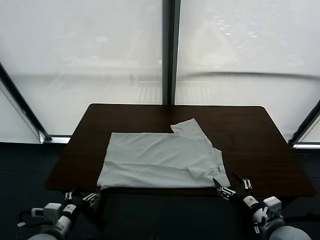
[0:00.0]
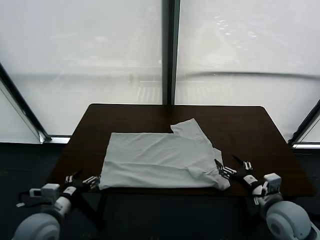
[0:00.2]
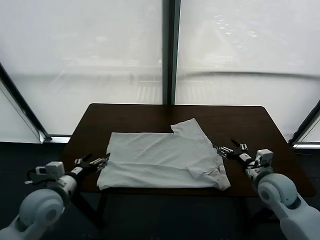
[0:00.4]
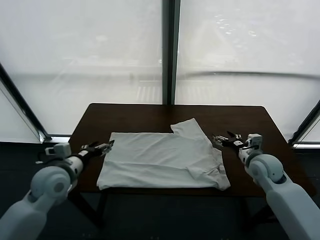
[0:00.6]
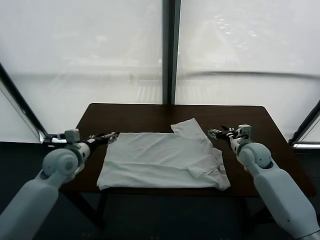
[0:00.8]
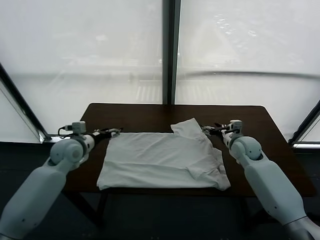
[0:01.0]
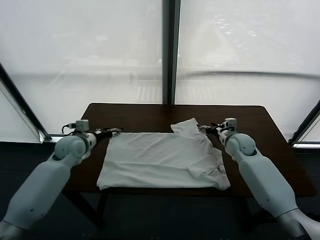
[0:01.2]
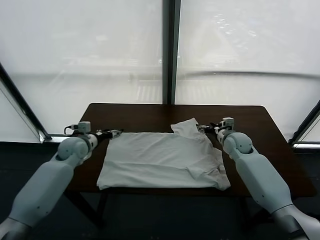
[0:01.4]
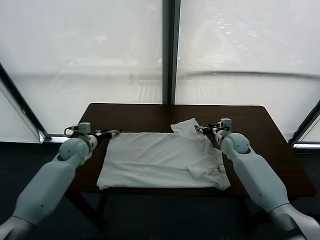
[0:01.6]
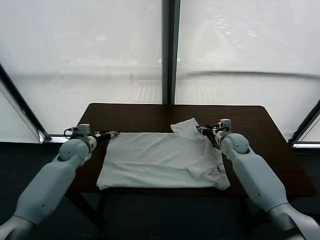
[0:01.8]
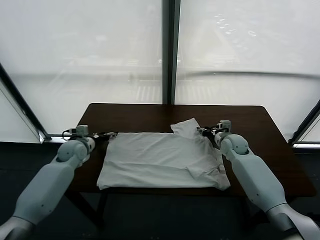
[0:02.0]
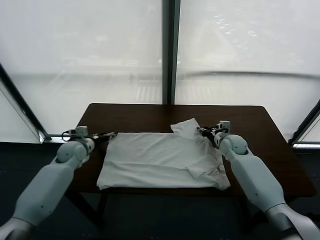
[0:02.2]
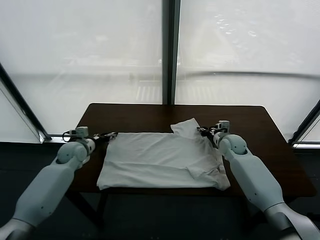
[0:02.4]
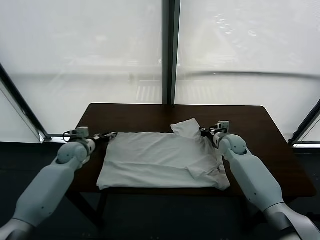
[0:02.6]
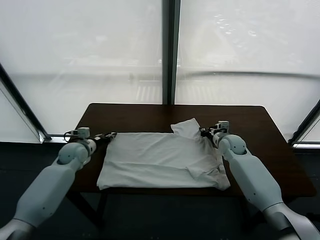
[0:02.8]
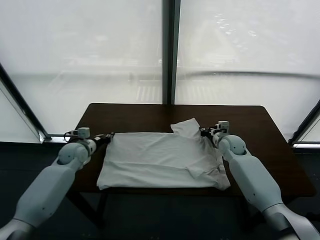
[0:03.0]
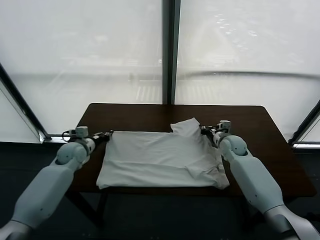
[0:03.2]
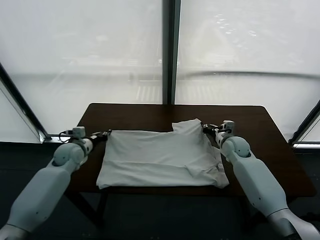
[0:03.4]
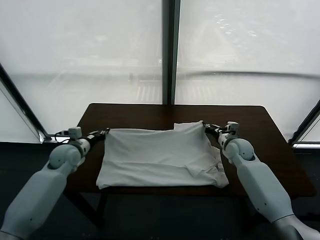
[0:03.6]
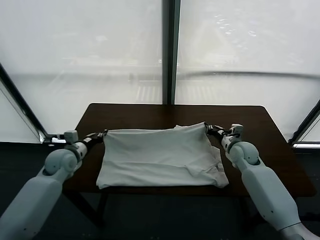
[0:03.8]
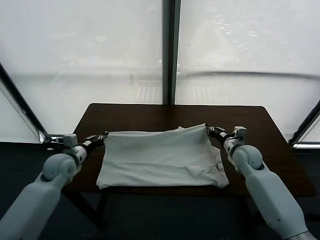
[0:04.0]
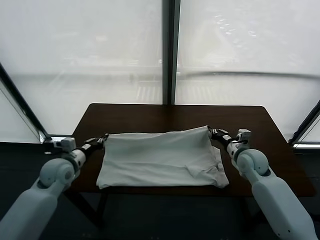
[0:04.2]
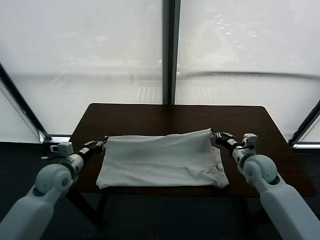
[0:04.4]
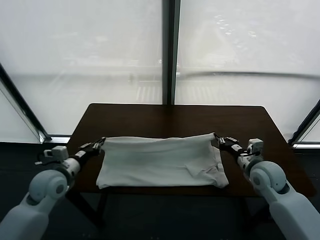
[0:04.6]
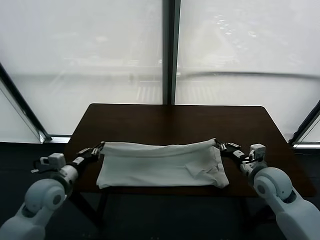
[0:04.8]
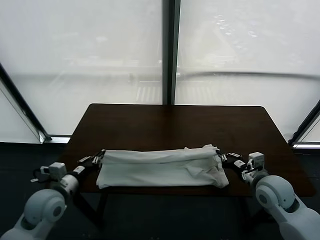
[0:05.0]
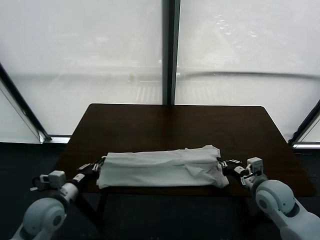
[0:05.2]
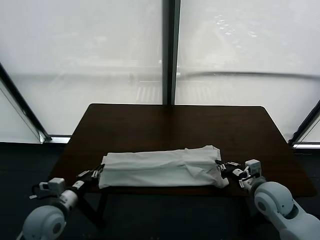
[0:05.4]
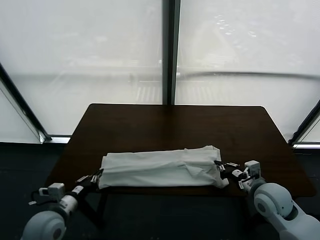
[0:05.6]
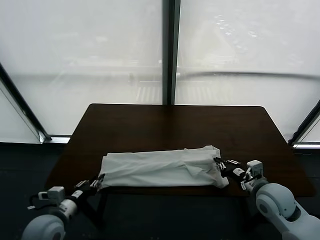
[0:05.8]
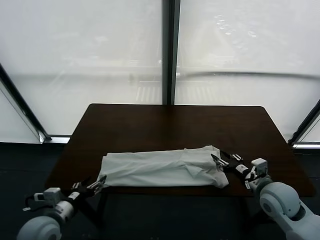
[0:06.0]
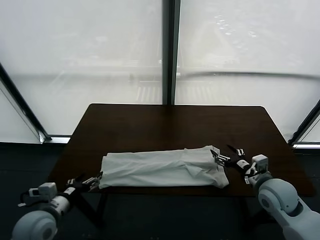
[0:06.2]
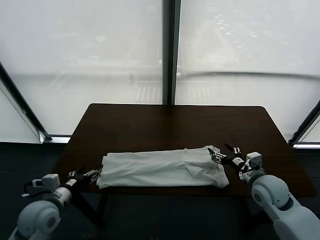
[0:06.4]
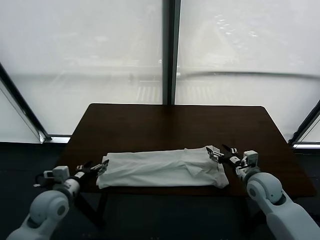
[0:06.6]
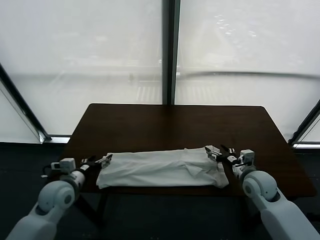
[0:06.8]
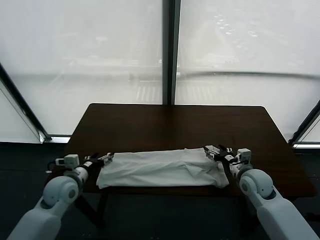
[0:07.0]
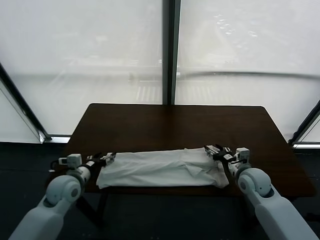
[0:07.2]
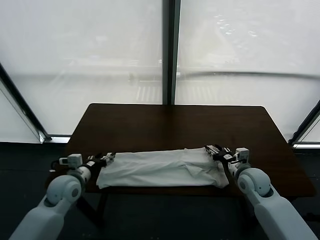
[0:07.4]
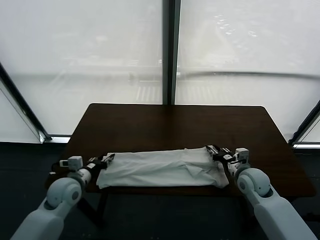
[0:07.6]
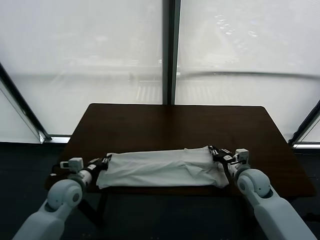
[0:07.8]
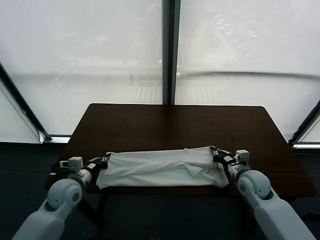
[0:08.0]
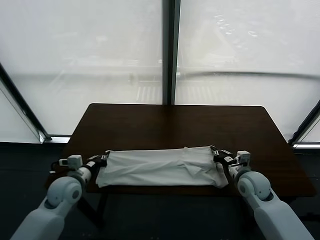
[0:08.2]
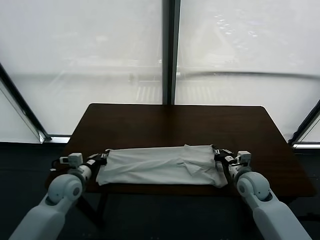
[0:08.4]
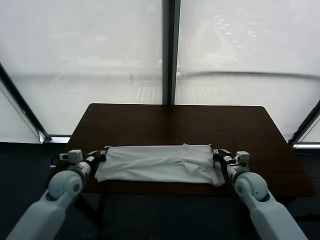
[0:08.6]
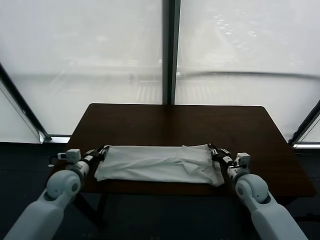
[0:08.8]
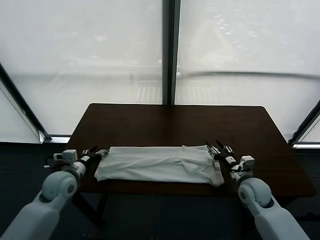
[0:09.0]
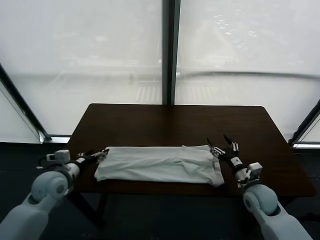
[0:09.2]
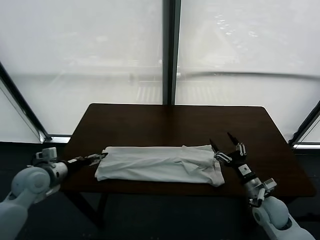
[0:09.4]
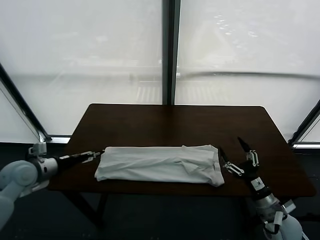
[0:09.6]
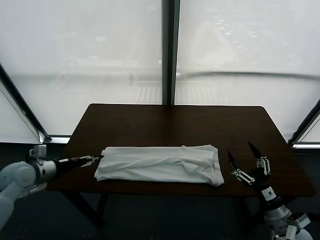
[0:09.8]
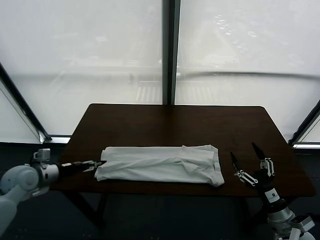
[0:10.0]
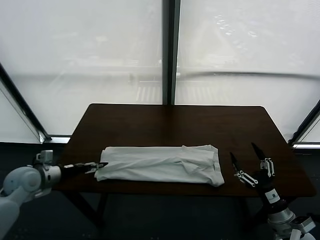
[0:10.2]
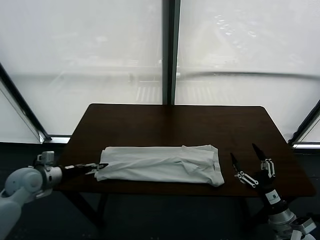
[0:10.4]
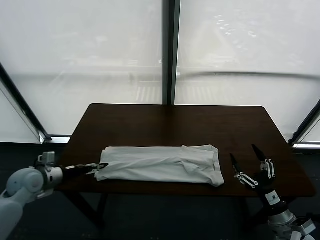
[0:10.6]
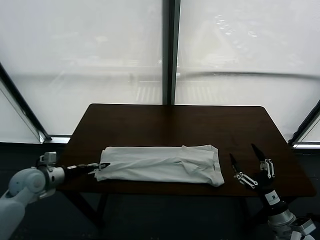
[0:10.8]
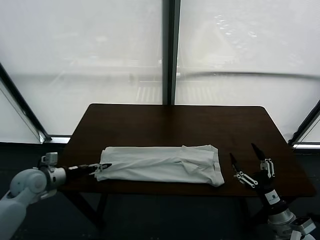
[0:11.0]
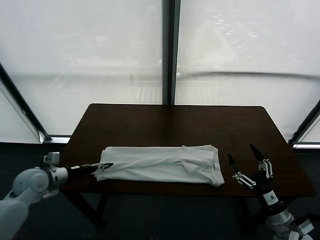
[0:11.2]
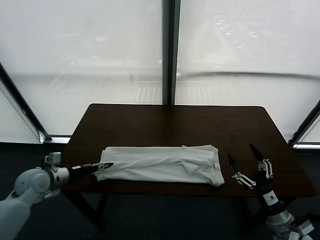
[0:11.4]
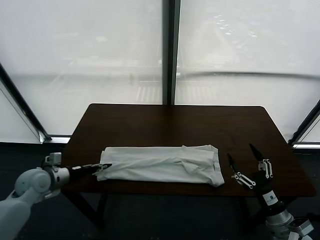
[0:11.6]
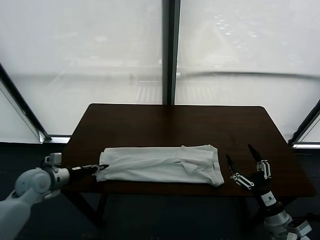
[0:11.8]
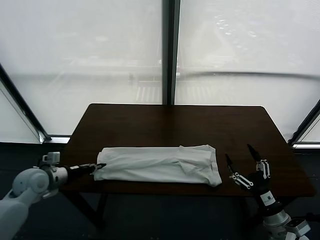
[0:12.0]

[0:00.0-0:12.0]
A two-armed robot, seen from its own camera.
Task of the whole recording: fold and organize the clothes.
Step, 0:00.0 to 0:03.0: use both grippers simultaneously to clamp the upper edge of the clothing fabric.
Step, 0:03.2 to 0:06.2: use both grippers to drag the upper edge of the fabric backward and fold it over the lower edge.
Step, 0:06.4 to 0:11.6: use the left gripper to clamp the left edge of the fabric.
0:00.0 to 0:01.6: The two grippers go roughly 30 cm forward.
0:01.6 to 0:03.0: The right gripper closes its fingers; the left gripper closes.
0:03.0 to 0:04.4: Both grippers travel together backward, roughly 15 cm.
0:04.4 to 0:06.0: The left gripper goes some 15 cm backward, and opens its fingers, while the right gripper moves backward, some 5 cm, and opens its fingers.
0:06.0 to 0:07.6: The left gripper travels forward by approximately 10 cm, and closes its fingers; the right gripper shifts roughly 10 cm forward and downward, and closes up.
0:07.6 to 0:09.0: The left gripper opens up, while the right gripper opens its fingers.
0:09.0 to 0:10.4: The right gripper heads backward, covering some 15 cm; the left gripper is displaced to the left by about 10 cm.
0:10.4 to 0:12.0: The left gripper closes up.

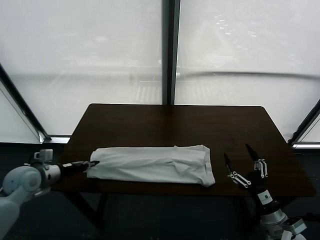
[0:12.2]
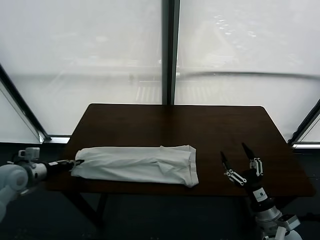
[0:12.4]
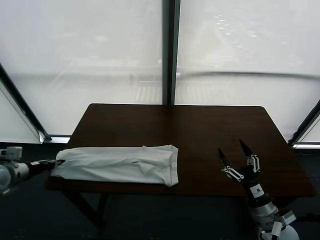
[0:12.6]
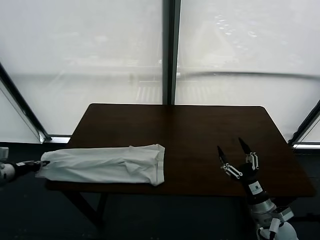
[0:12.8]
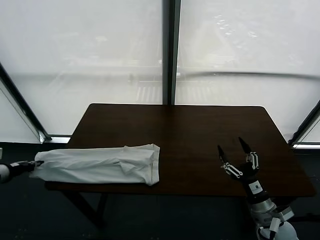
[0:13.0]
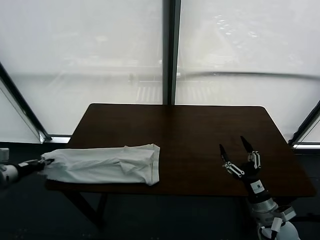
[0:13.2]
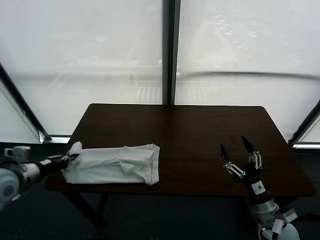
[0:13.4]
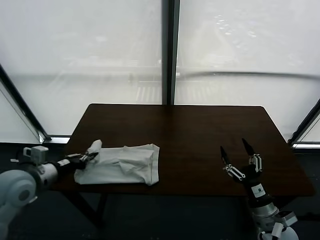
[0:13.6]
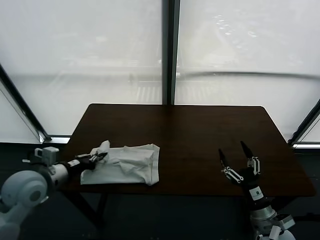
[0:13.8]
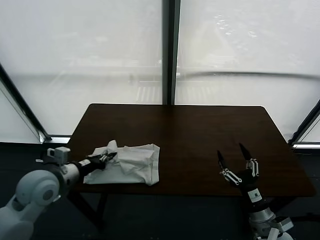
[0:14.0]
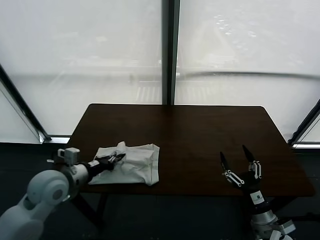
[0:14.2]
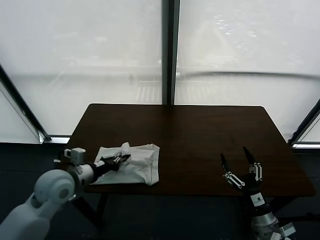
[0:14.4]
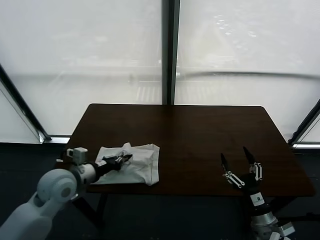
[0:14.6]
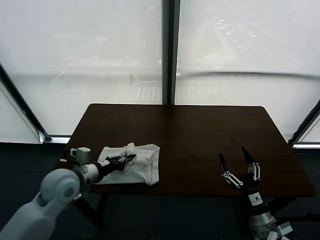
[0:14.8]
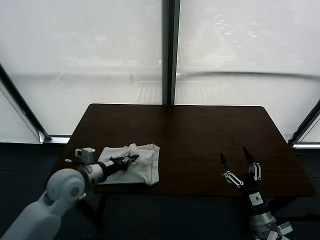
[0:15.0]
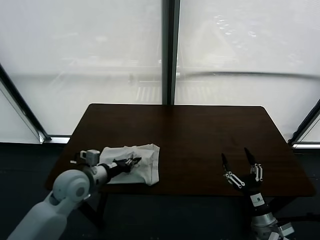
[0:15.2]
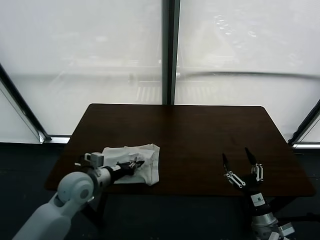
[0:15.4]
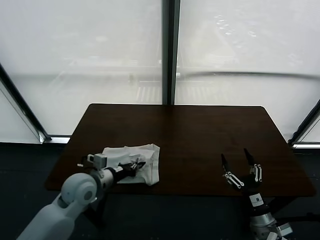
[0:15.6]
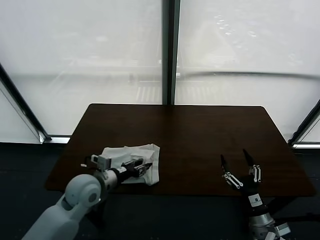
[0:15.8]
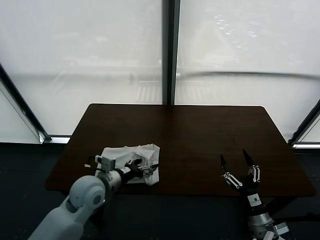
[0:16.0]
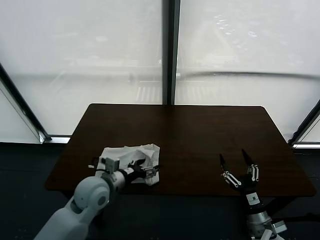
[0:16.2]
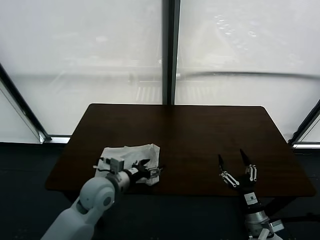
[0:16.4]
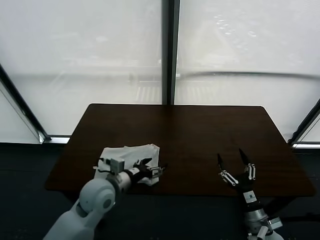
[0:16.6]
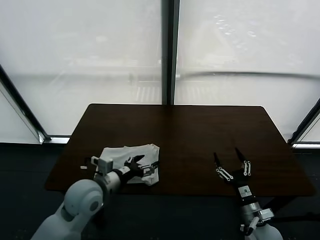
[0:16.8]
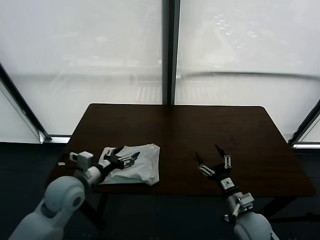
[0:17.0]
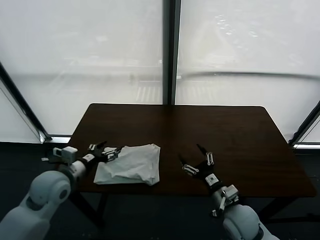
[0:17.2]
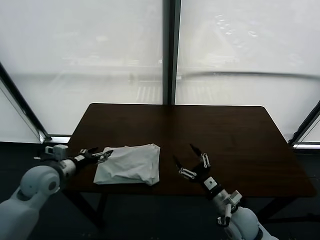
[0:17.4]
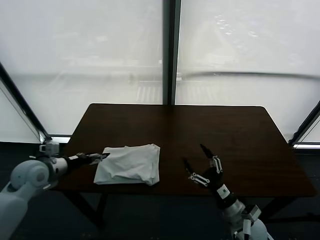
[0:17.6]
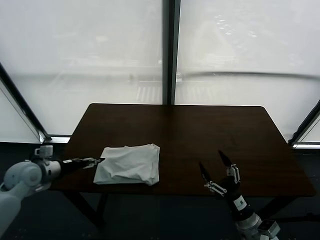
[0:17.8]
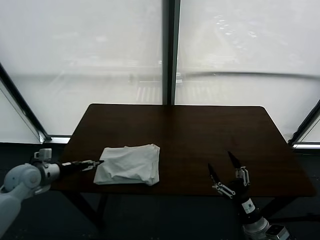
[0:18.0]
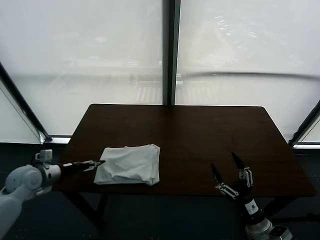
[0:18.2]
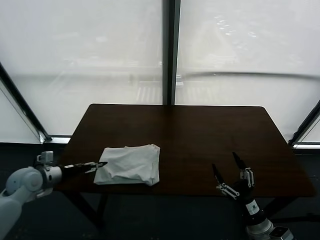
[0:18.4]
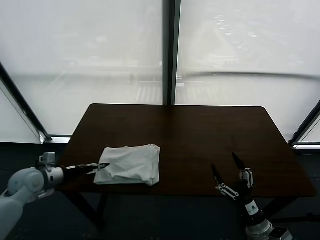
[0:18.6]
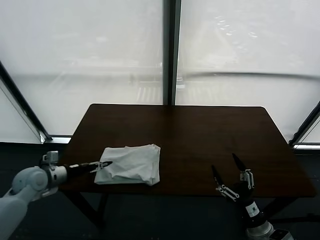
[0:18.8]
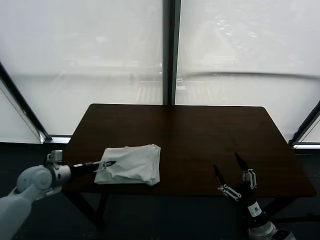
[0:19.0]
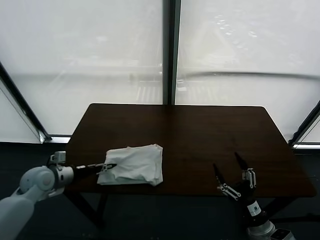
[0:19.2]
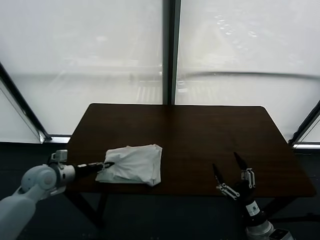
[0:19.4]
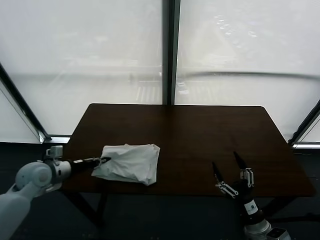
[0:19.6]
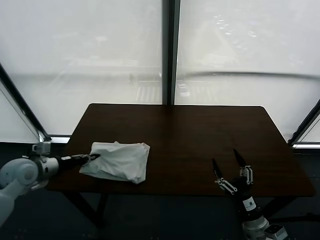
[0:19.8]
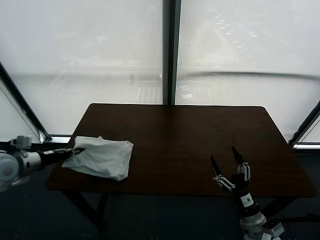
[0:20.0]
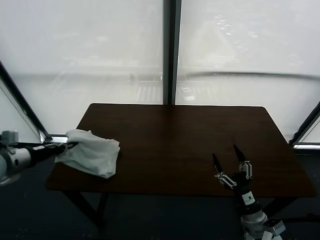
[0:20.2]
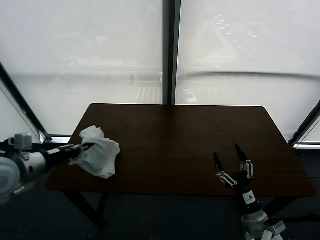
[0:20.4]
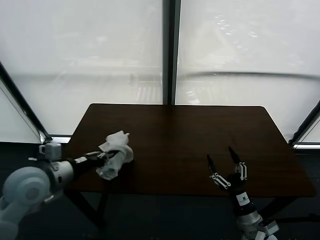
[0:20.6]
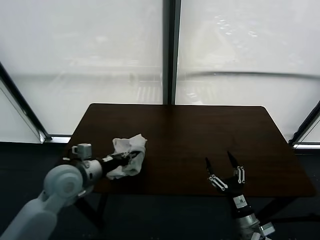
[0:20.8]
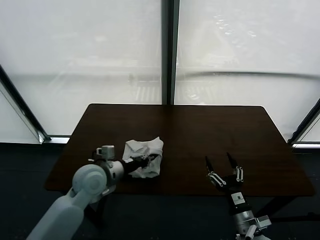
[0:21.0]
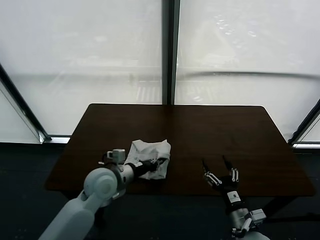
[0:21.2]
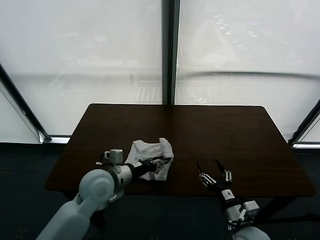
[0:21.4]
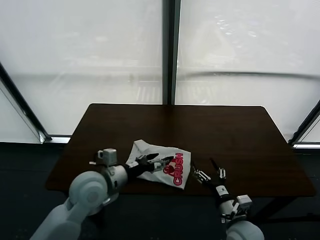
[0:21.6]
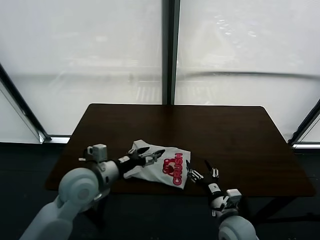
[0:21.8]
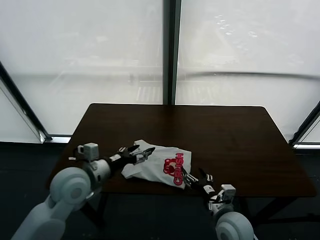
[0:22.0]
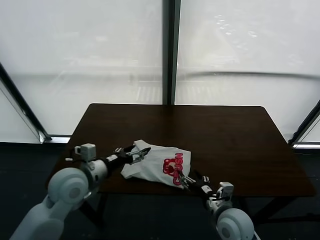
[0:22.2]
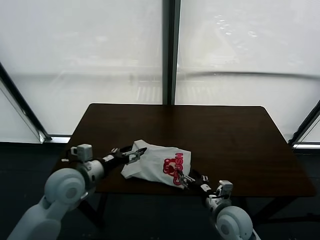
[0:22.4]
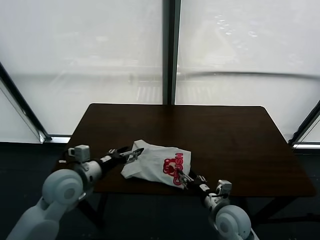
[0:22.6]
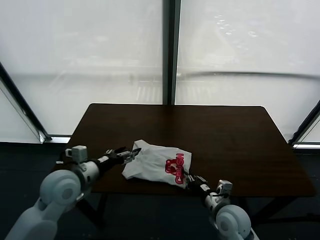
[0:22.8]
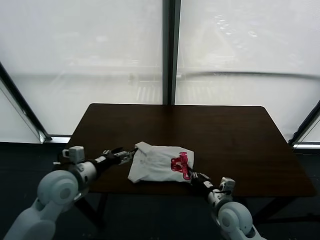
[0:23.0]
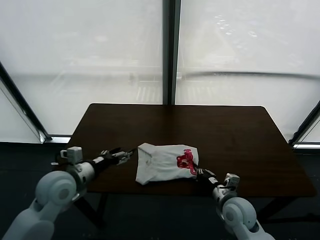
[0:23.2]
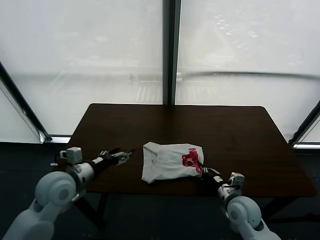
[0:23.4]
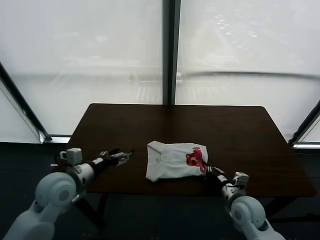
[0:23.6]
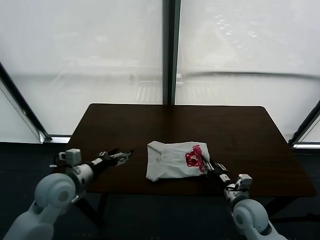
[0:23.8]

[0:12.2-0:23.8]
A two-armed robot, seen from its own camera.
Task of the whole recording: fold and organize the clothes.
Step, 0:12.2 to 0:16.8: use the left gripper to drag the left edge of the fabric to the left and folds it over the right edge.
Step, 0:17.0 to 0:21.4: Flip the folded clothes over with left gripper.
0:12.2 to 0:13.6: The left gripper is displaced upward, to the right and backward by approximately 10 cm.
0:13.6 to 0:15.0: The left gripper shifts approximately 10 cm to the right and downward.
0:15.0 to 0:16.6: The left gripper goes about 10 cm to the right, and opens its fingers.
0:16.6 to 0:18.0: The right gripper goes to the left and returns, approximately 10 cm each way. Meanwhile the left gripper travels to the left by about 25 cm.
0:18.0 to 0:19.4: The left gripper closes.
0:19.4 to 0:21.0: The left gripper shifts some 15 cm to the right.
0:21.0 to 0:22.4: The right gripper is displaced forward and to the left by approximately 10 cm. The left gripper shifts by approximately 5 cm, and opens up.
0:22.4 to 0:23.8: The right gripper goes about 5 cm to the right, and closes.
